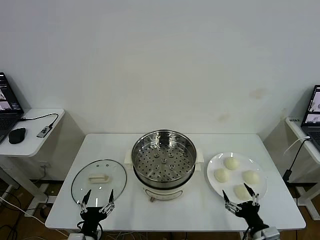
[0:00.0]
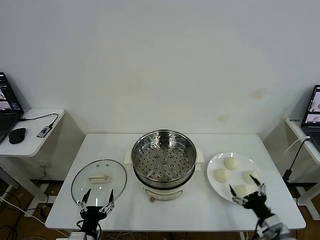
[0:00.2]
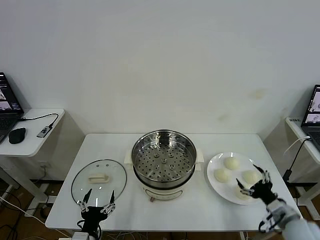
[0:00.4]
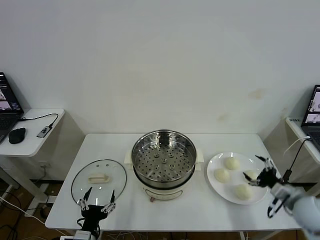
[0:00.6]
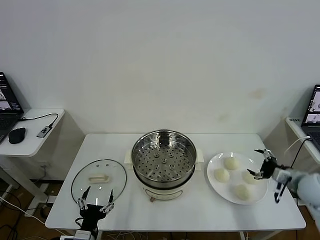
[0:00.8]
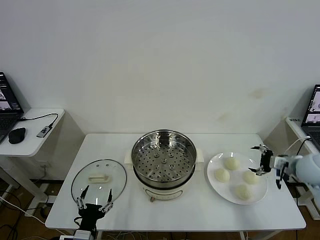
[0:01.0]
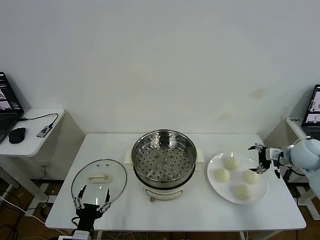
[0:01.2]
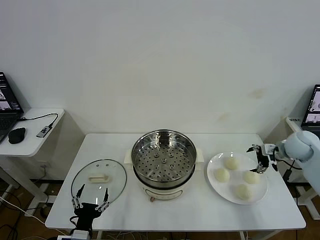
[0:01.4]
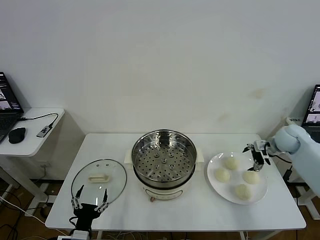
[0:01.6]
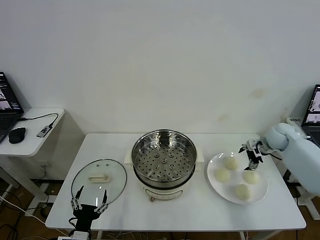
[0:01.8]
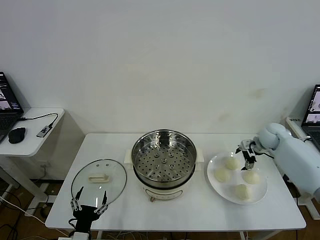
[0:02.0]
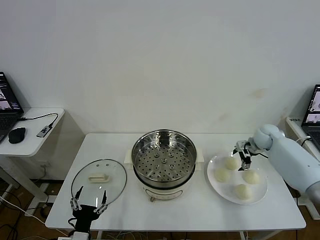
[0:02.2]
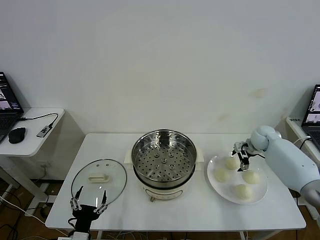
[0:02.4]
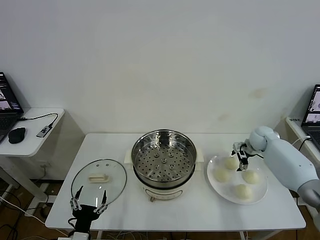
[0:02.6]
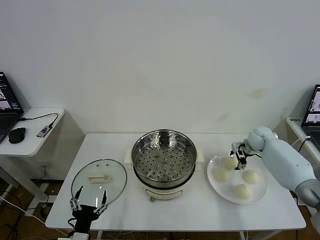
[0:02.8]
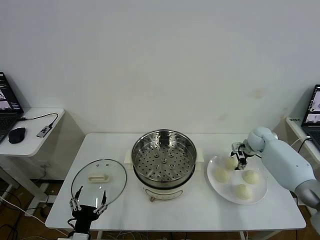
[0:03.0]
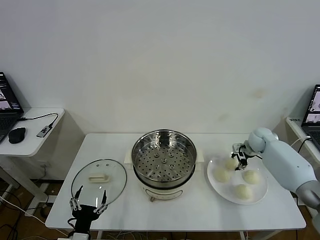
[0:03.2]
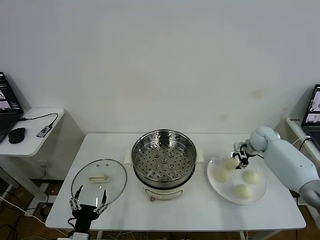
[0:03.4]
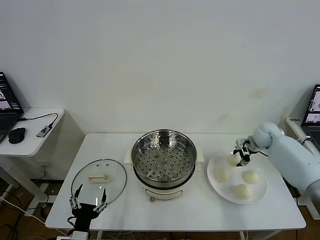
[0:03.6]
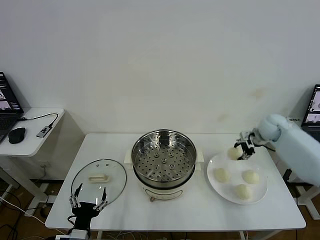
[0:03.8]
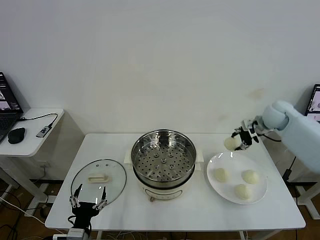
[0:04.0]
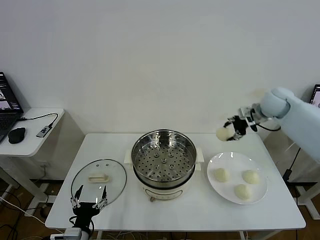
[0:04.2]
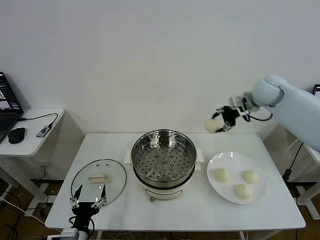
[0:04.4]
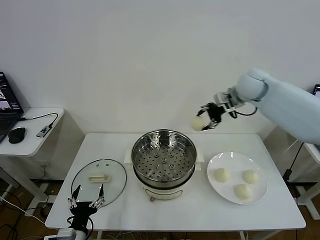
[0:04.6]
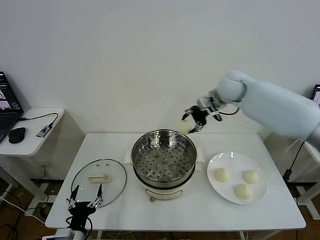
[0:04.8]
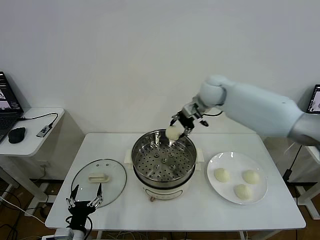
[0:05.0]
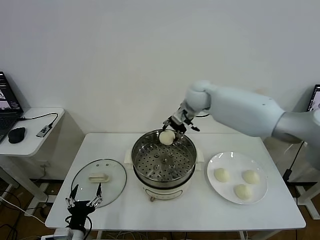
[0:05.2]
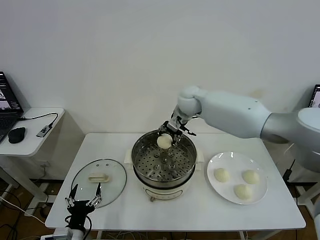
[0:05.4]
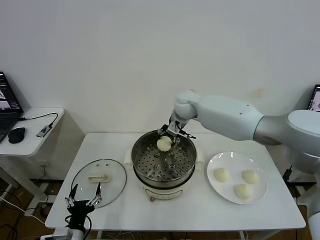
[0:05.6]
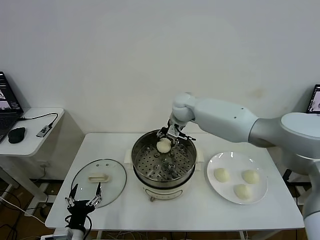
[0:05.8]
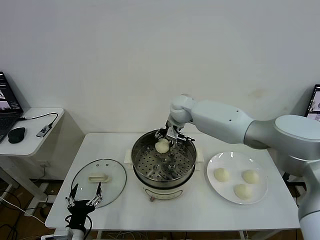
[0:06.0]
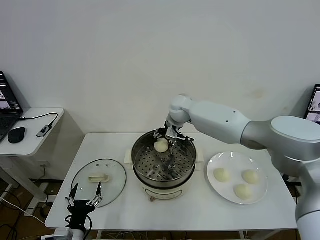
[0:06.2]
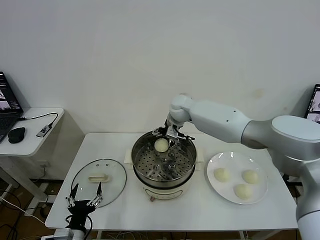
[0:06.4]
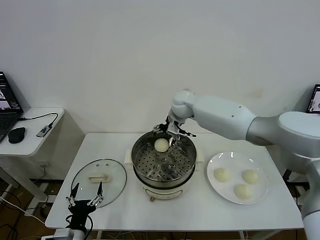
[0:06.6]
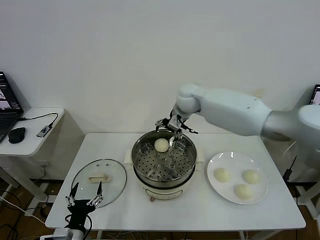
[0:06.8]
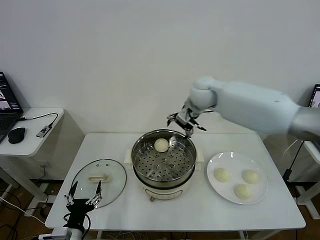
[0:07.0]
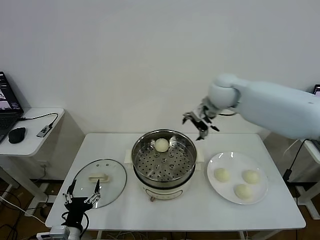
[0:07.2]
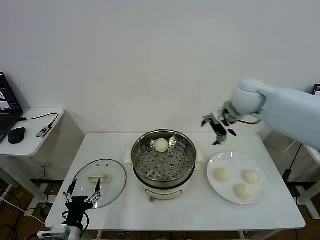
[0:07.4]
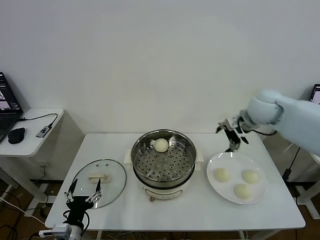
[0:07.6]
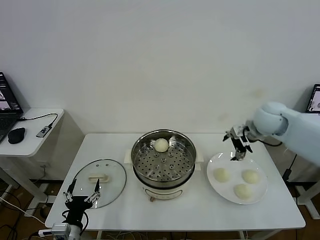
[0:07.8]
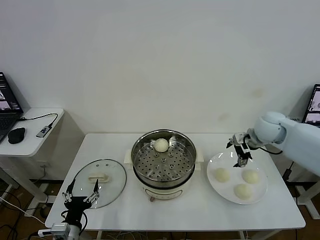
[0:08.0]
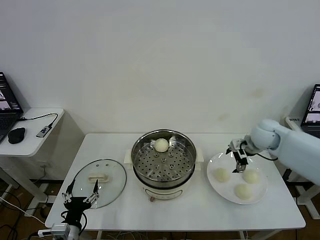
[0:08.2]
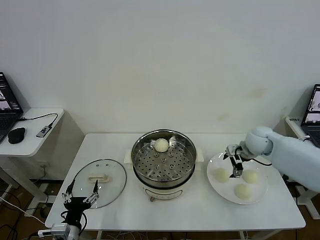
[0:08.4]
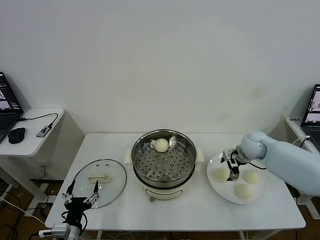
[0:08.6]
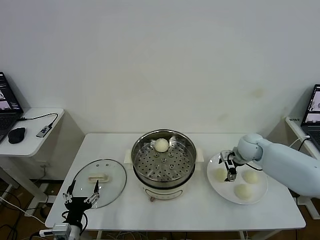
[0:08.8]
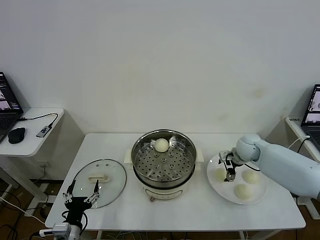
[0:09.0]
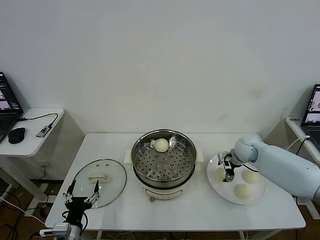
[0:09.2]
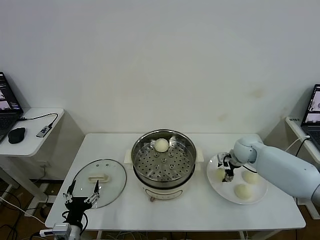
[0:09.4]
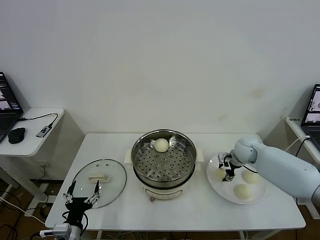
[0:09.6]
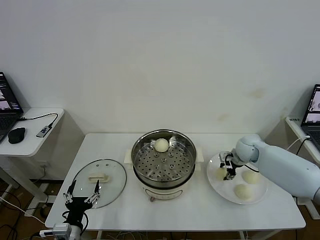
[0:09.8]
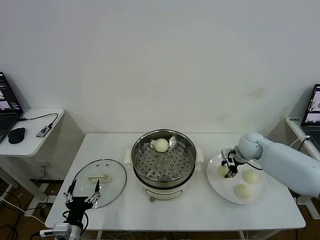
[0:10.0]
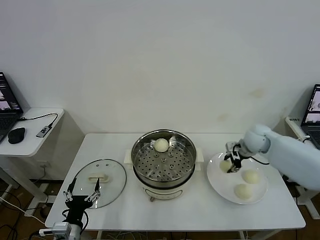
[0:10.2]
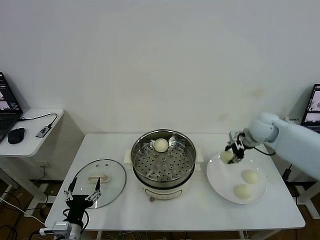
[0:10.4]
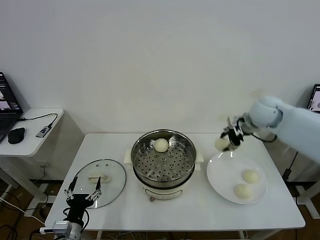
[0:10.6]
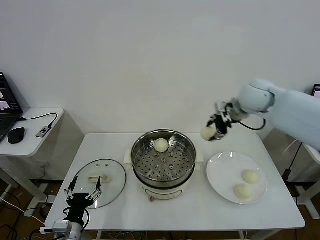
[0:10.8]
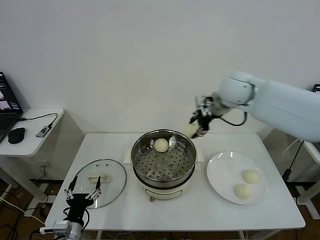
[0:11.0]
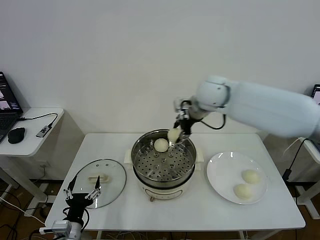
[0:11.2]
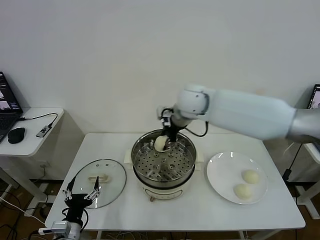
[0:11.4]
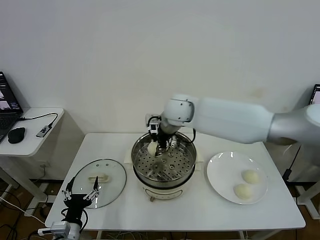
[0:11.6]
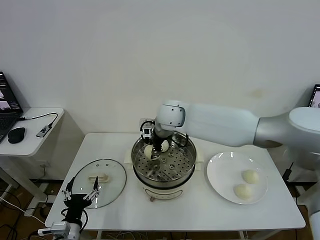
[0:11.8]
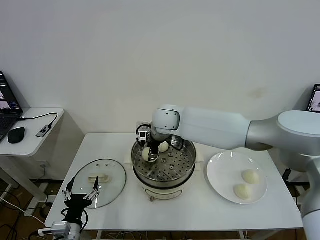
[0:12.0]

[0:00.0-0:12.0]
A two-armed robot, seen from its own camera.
Task of the whole recording: take steamed baozi put them in steamer then cover it.
Step, 0:00.0 to 0:03.0: Grasp the baozi in the plate with right gripper.
Step, 0:03.2 to 0:06.4: Place the baozi on the steamer with right gripper.
Step, 0:06.6 to 0:09.6: Grasp the baozi in the plate with right gripper.
0:01.6 to 0:03.0: The right gripper heads downward, covering roughly 5 cm, and closes up.
0:03.0 to 0:04.4: The right gripper goes approximately 25 cm upward and to the left.
0:04.4 to 0:06.0: The right gripper travels to the left and downward by roughly 25 cm.
0:06.0 to 0:07.6: The right gripper moves to the right and backward, about 25 cm, and opens.
0:07.6 to 0:09.0: The right gripper goes roughly 20 cm downward.
0:09.0 to 0:10.4: The right gripper travels upward by roughly 15 cm, and closes up.
0:10.4 to 0:12.0: The right gripper travels to the left by roughly 35 cm.

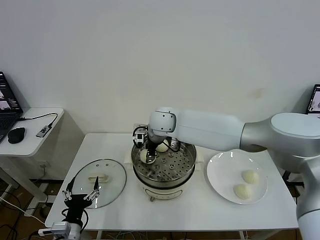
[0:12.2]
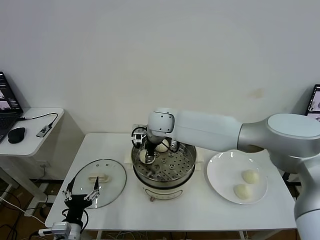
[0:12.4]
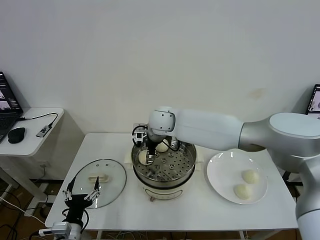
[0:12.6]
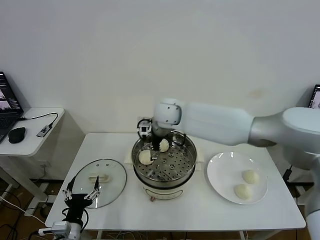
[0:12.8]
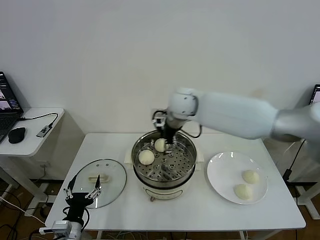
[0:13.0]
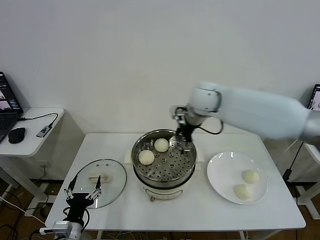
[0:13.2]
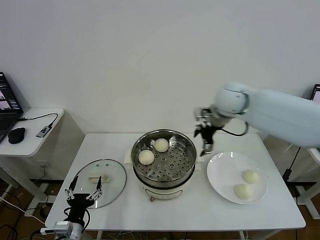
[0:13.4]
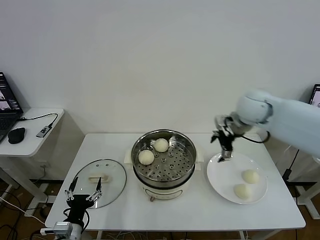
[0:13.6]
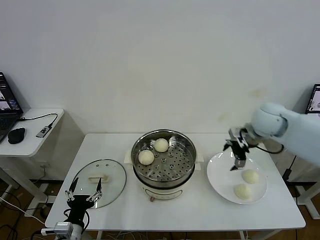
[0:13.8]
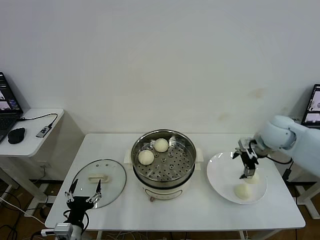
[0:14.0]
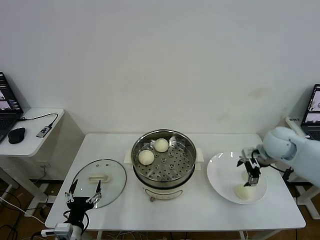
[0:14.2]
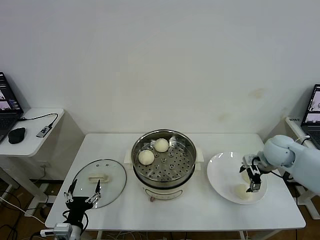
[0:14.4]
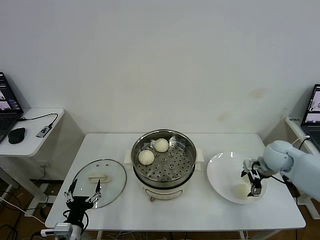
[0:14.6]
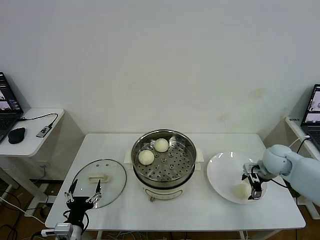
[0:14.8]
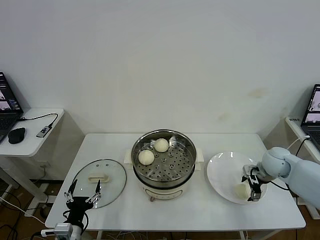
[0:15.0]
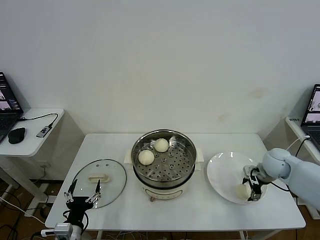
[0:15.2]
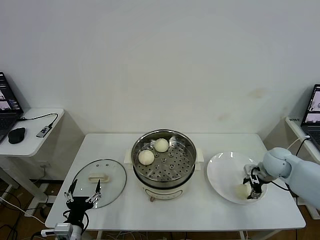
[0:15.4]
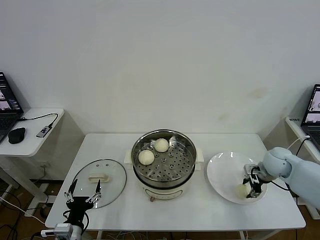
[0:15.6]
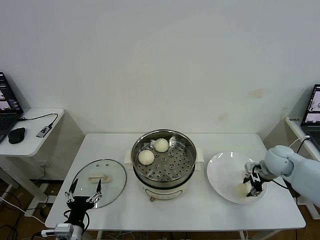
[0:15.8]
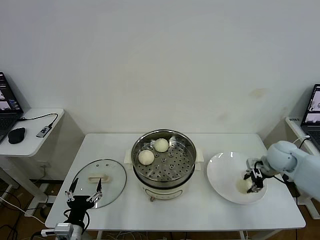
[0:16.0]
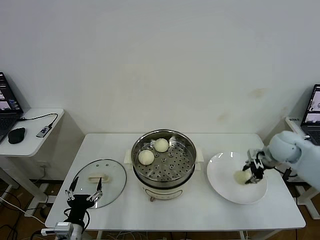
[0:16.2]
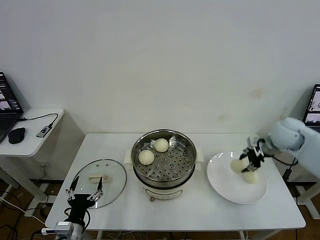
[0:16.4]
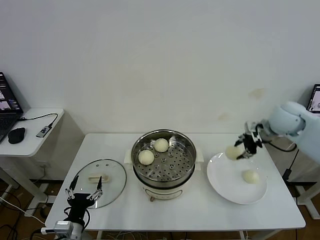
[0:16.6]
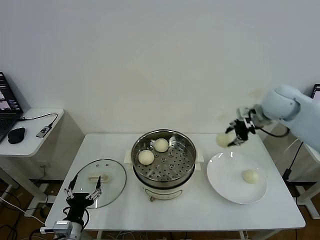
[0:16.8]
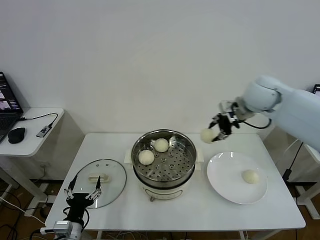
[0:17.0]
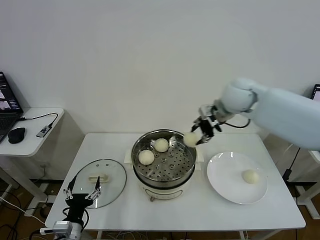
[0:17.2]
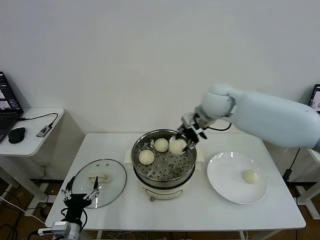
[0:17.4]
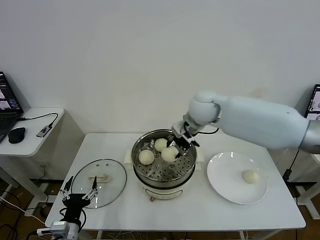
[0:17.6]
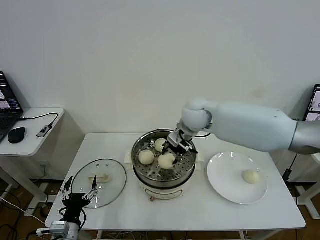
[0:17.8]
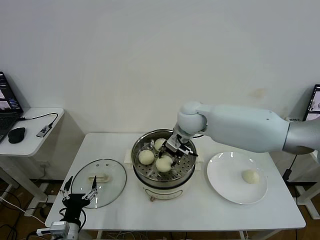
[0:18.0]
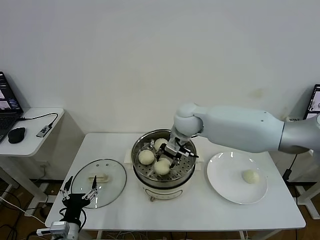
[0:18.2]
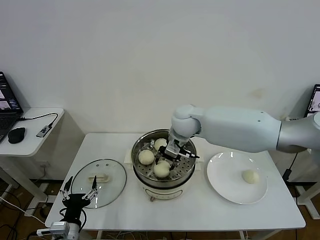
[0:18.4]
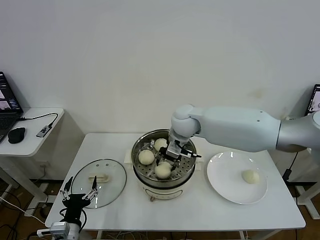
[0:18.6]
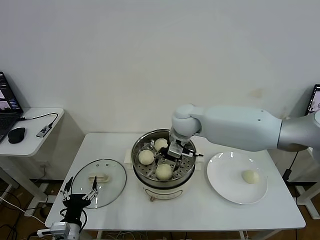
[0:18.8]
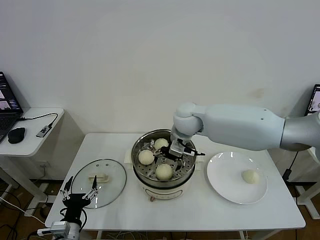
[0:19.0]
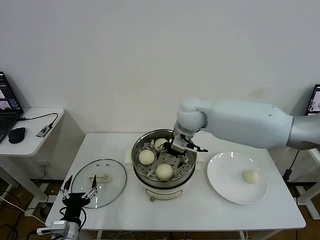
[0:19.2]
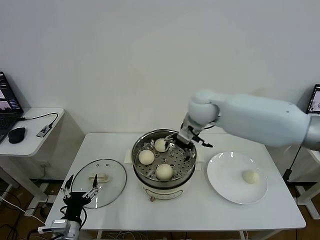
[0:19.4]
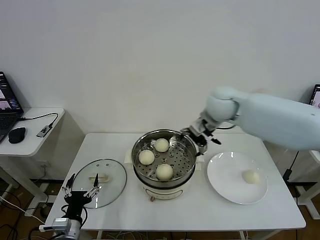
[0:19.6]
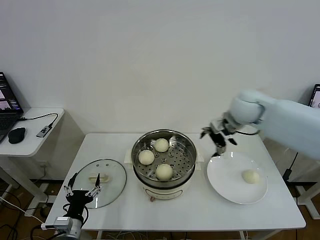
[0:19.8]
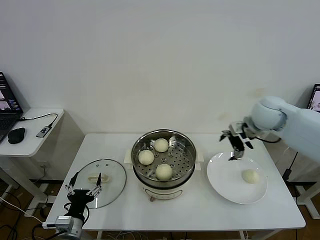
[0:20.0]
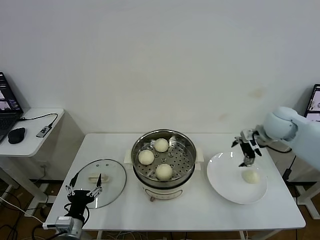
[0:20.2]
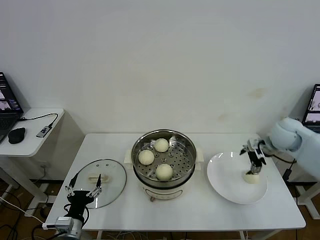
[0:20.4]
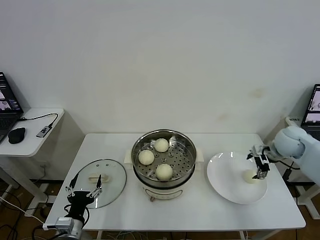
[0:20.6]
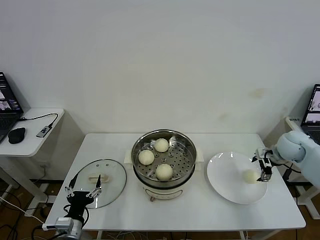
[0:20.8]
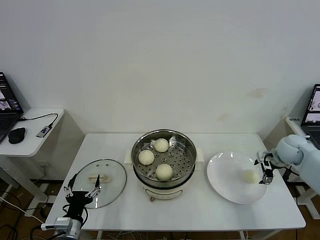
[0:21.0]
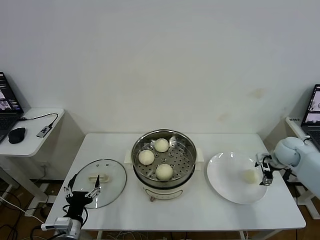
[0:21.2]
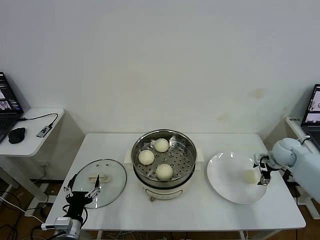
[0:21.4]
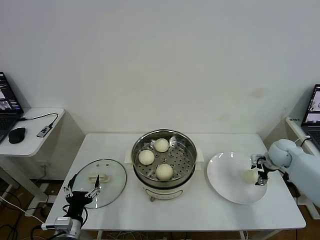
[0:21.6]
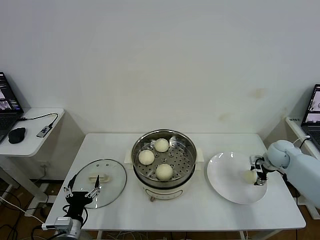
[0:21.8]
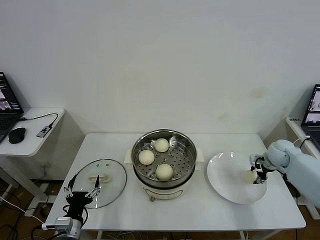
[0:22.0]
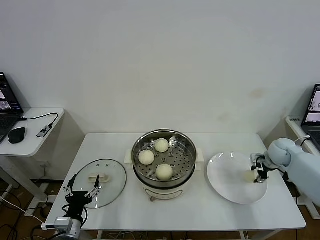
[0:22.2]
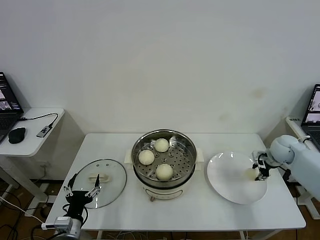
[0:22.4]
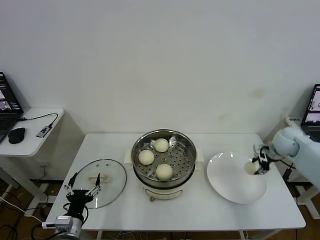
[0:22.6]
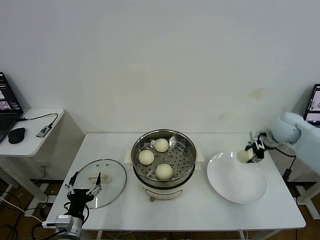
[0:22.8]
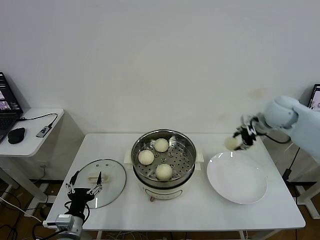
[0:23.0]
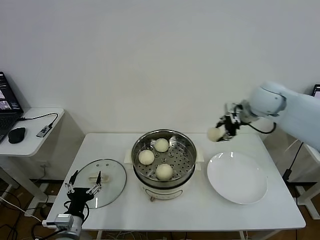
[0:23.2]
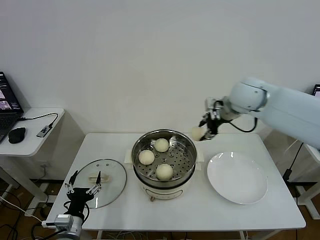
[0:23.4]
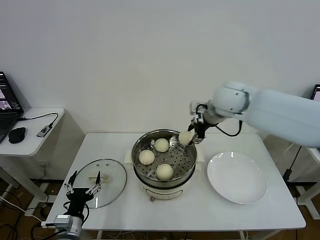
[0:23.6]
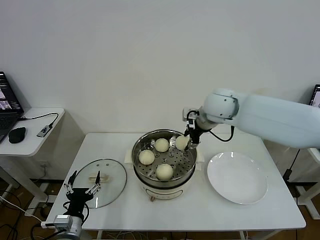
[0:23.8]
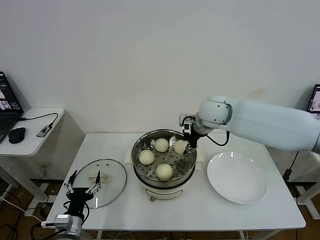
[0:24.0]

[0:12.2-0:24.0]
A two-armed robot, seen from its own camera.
Task of the whole recording: take steamed baozi put them in steamer then cover it.
Step, 0:13.0 to 0:15.4: Grasp the baozi in the plate with right gripper.
Step, 0:15.6 to 0:19.2: Place the baozi on the steamer with right gripper.
Step, 0:19.4 to 0:22.2: Grasp the baozi in the plate with right gripper.
0:12.2 to 0:13.6: The right gripper shifts about 30 cm to the right, and opens.
0:13.6 to 0:15.2: The right gripper moves downward and to the right, roughly 20 cm.
0:15.2 to 0:16.6: The right gripper shifts approximately 20 cm upward, and closes up.
0:16.6 to 0:18.2: The right gripper goes roughly 30 cm to the left.
0:18.2 to 0:19.6: The right gripper travels to the right and upward by about 10 cm, and opens.
0:19.6 to 0:21.0: The right gripper heads to the right and downward, covering roughly 30 cm.
0:21.0 to 0:22.6: The right gripper closes its fingers.
0:22.6 to 0:24.0: The right gripper is displaced to the left and upward by some 30 cm.
